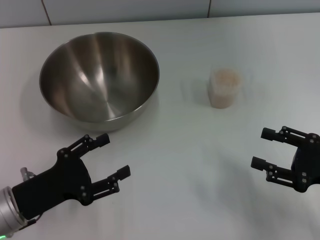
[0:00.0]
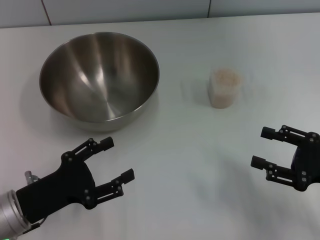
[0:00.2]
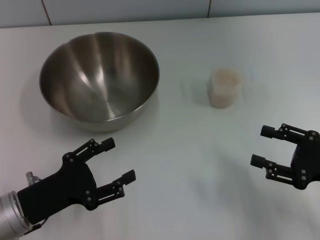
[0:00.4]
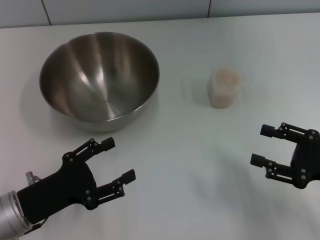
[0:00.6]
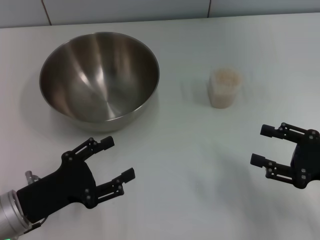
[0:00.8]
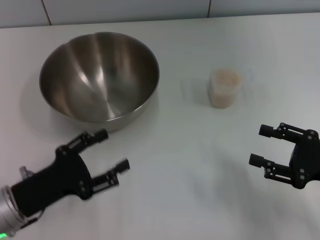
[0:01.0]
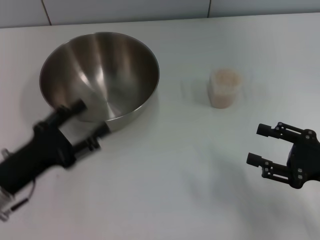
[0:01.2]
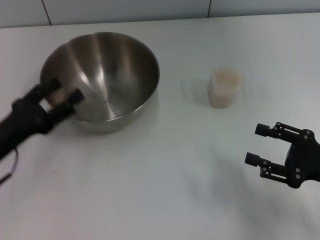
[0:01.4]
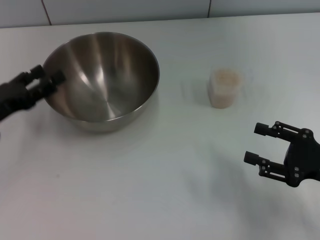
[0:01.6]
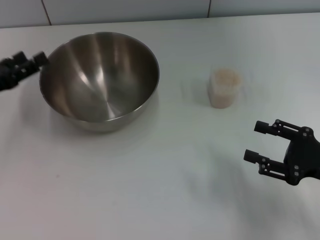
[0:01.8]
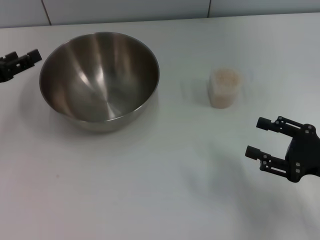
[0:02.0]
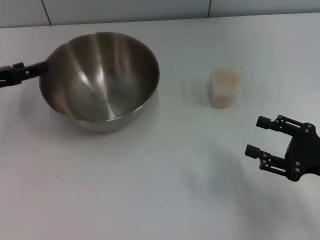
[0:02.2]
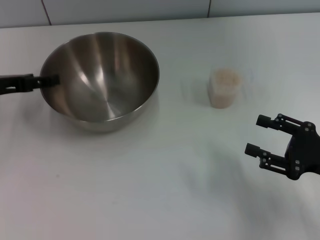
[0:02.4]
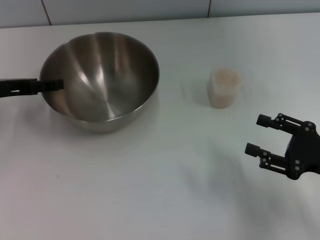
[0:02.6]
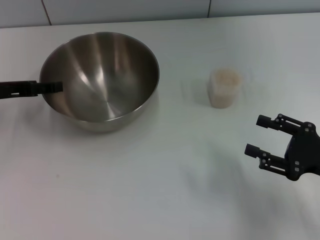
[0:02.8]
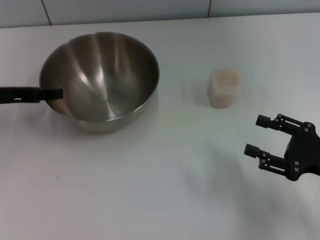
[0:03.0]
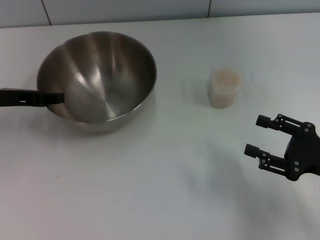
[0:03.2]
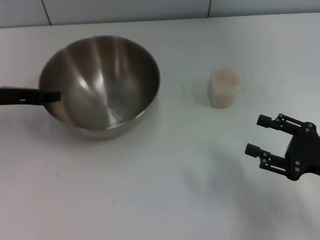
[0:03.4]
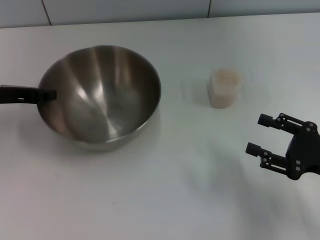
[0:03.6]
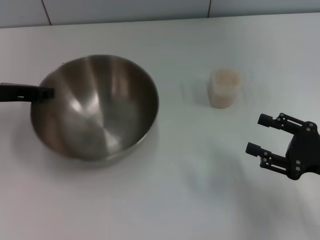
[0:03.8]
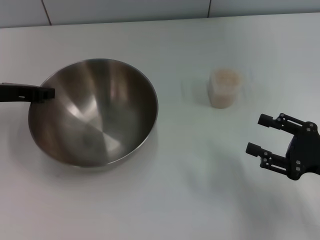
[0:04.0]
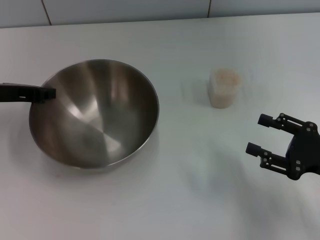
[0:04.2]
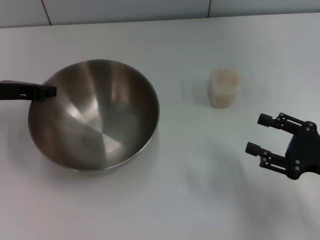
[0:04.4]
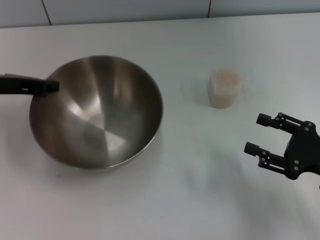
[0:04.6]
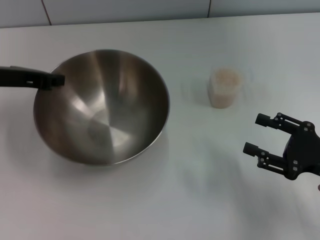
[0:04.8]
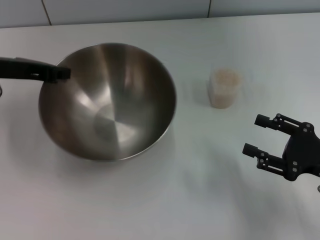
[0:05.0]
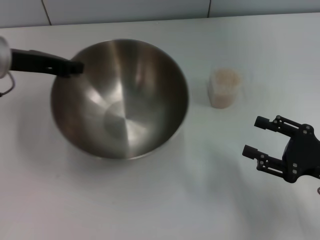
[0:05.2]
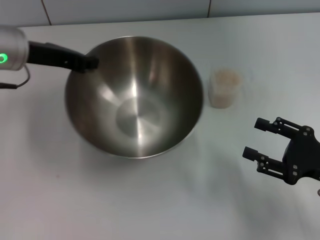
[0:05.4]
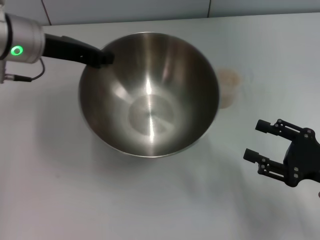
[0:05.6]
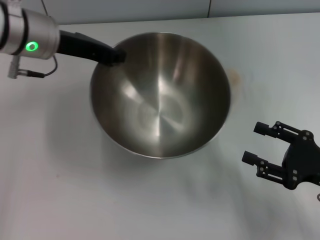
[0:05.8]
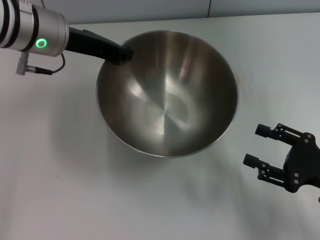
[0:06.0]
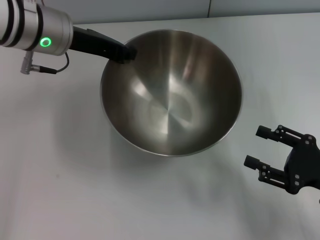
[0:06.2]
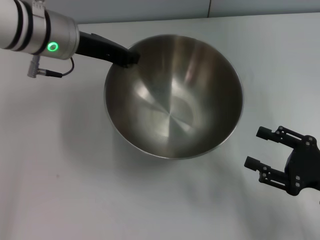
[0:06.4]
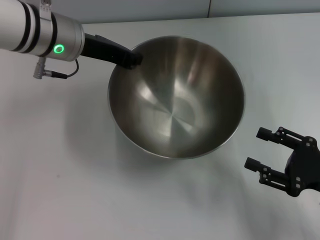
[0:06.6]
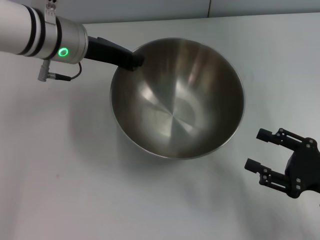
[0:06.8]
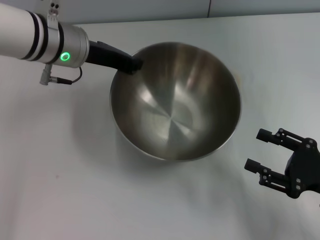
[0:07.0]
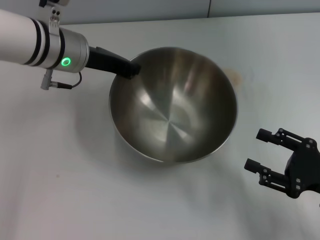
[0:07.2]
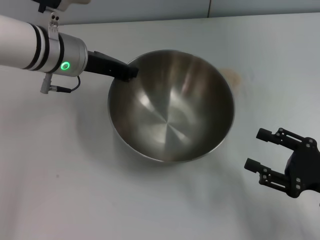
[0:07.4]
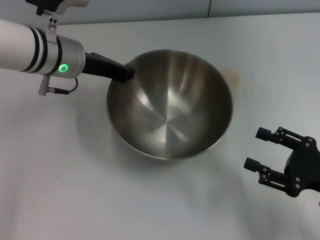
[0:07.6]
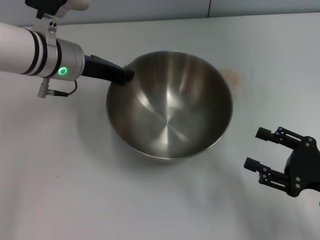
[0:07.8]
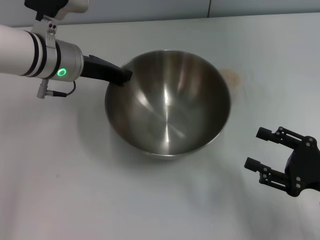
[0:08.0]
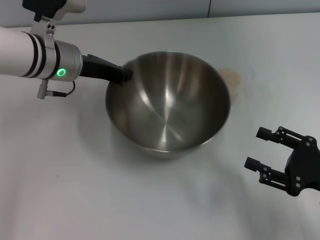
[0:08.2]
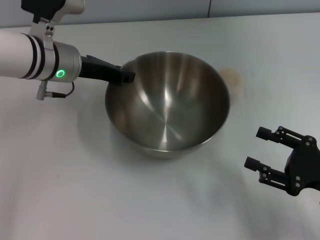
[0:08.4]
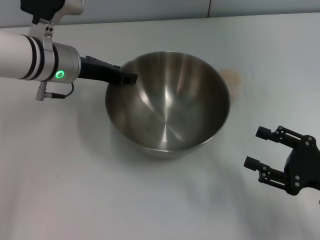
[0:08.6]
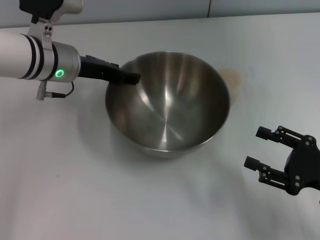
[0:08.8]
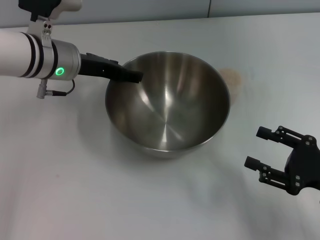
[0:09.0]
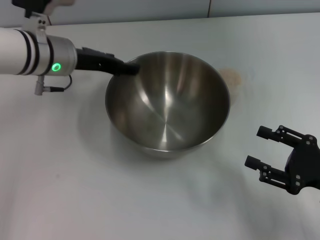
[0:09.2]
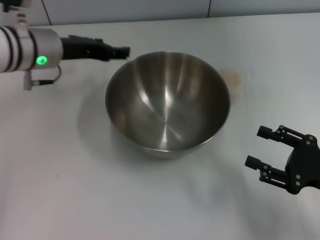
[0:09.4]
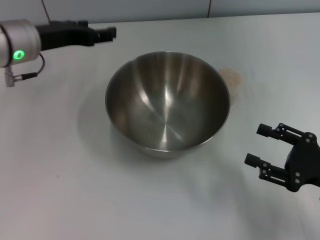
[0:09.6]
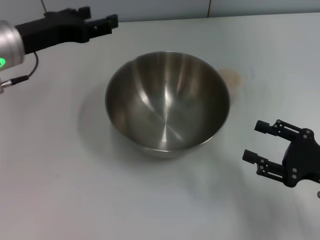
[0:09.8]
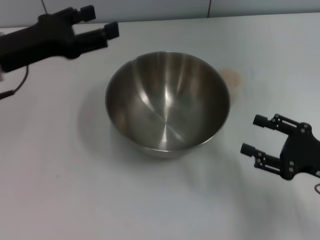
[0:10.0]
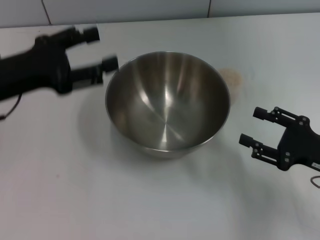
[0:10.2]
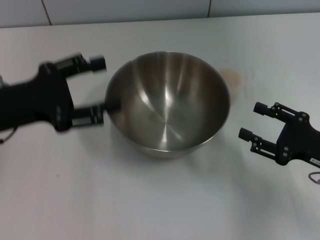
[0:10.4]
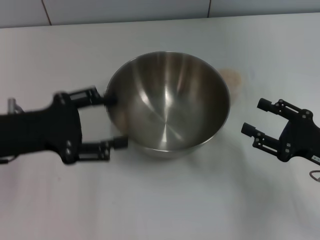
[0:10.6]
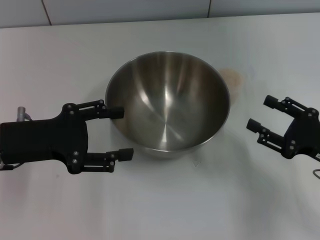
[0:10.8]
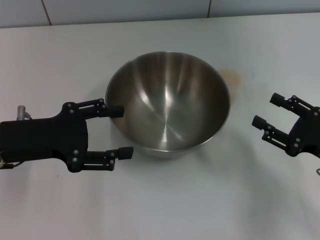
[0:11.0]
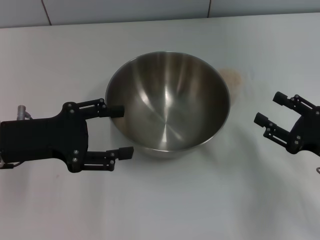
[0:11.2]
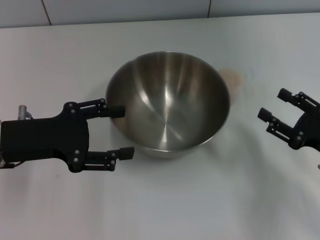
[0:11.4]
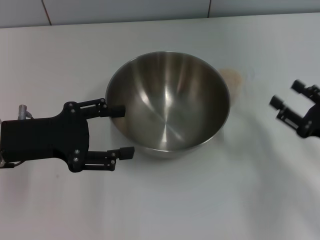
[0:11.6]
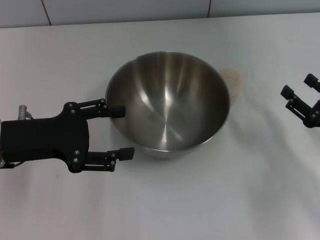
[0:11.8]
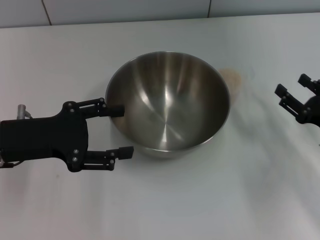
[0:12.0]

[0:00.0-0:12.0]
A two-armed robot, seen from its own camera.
Task of the whole recording: Place the bowl in the middle of the table with one hand and pour the rice from the grain cup into it with the other hand.
Step, 0:00.0 to 0:04.8: Pick up the bowl with the left gripper.
Step, 0:05.0 to 0:09.2: Place the bowl in the center of view with the left gripper.
0:00.0 to 0:01.6: The left gripper is displaced forward and to the left by roughly 10 cm.
0:01.6 to 0:03.0: The left gripper shifts approximately 10 cm forward and upward.
0:03.0 to 0:04.4: The left gripper closes up.
0:04.4 to 0:06.0: The left gripper shifts approximately 15 cm to the right and upward.
0:06.0 to 0:07.6: The left gripper shifts some 5 cm downward.
0:07.6 to 0:09.0: The left gripper opens up.
0:09.0 to 0:10.4: The left gripper shifts some 15 cm backward and to the left.

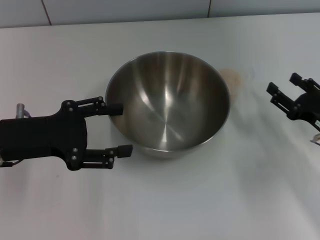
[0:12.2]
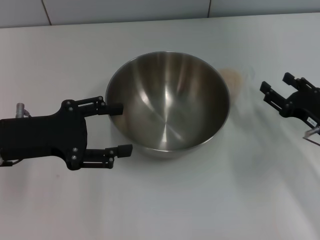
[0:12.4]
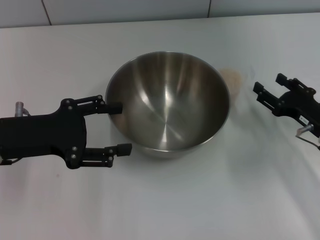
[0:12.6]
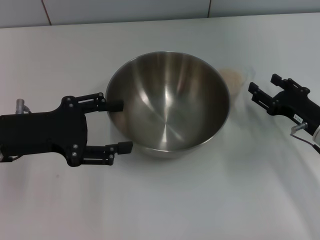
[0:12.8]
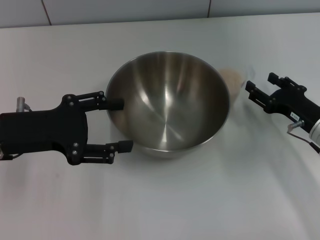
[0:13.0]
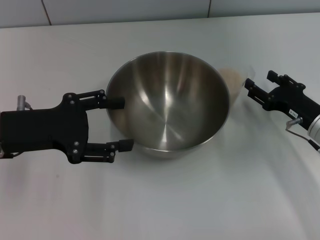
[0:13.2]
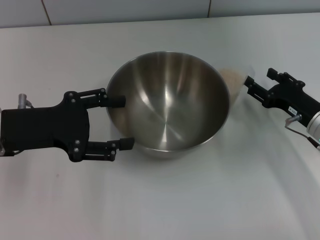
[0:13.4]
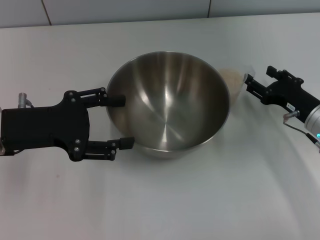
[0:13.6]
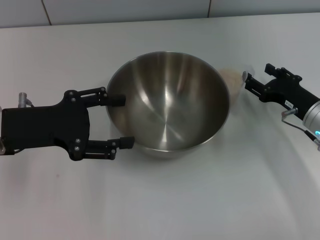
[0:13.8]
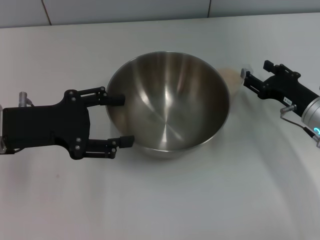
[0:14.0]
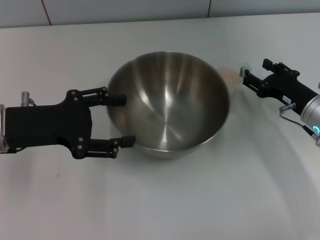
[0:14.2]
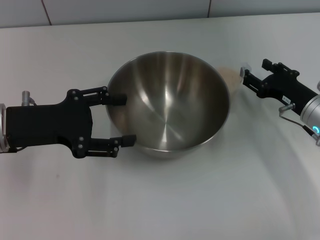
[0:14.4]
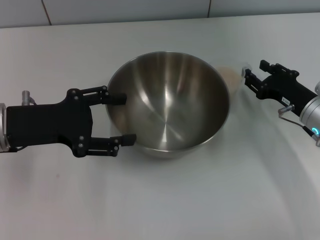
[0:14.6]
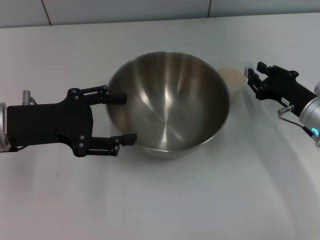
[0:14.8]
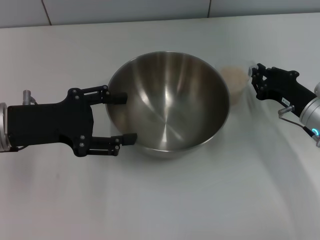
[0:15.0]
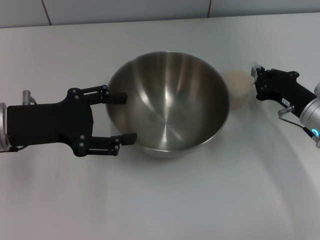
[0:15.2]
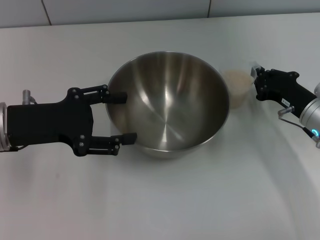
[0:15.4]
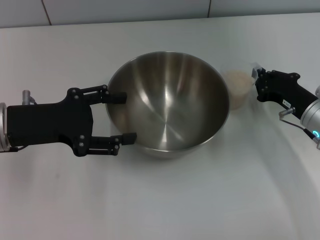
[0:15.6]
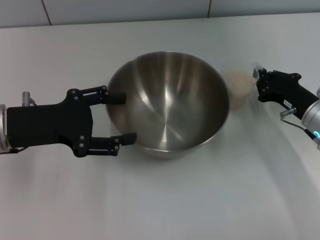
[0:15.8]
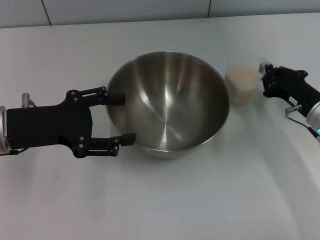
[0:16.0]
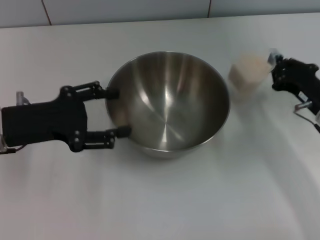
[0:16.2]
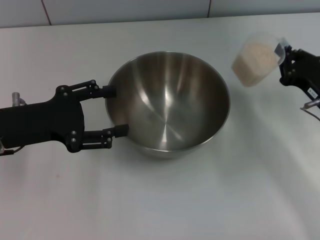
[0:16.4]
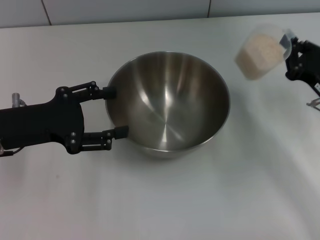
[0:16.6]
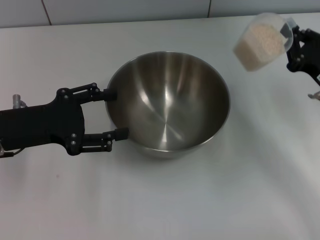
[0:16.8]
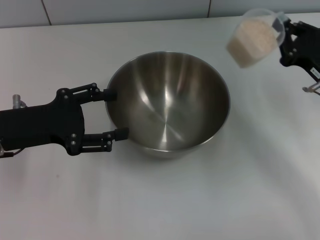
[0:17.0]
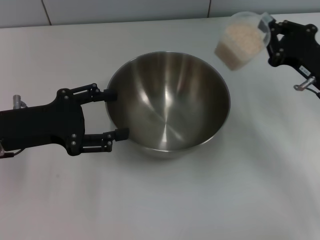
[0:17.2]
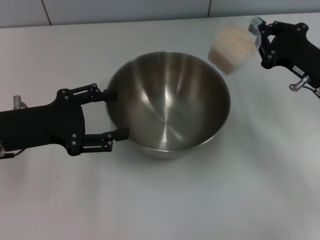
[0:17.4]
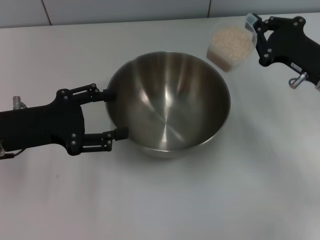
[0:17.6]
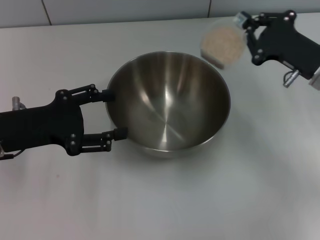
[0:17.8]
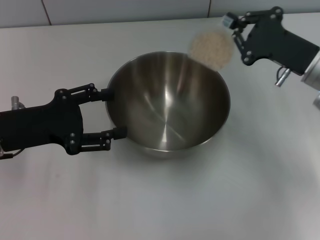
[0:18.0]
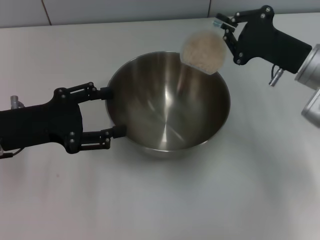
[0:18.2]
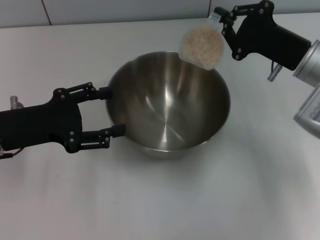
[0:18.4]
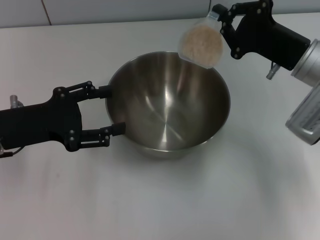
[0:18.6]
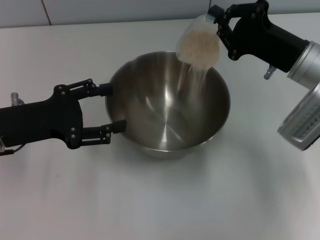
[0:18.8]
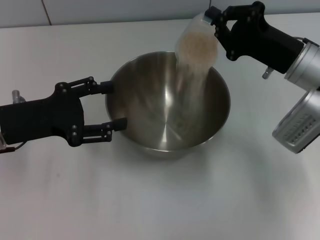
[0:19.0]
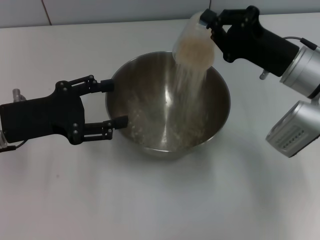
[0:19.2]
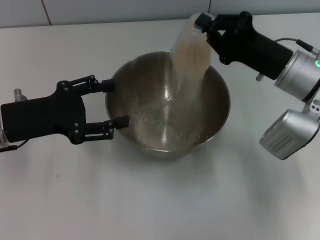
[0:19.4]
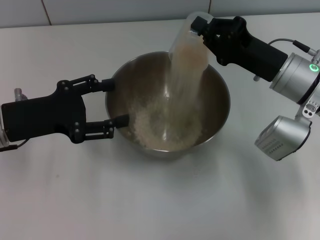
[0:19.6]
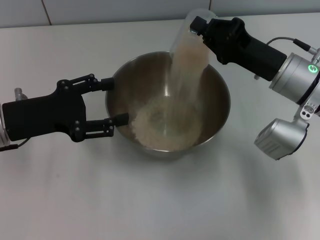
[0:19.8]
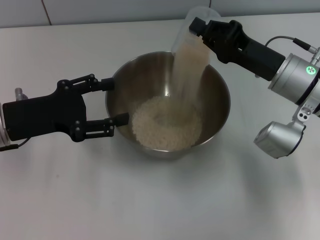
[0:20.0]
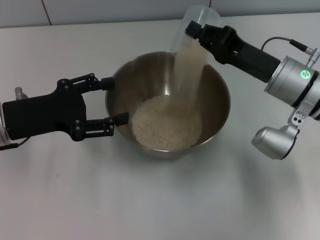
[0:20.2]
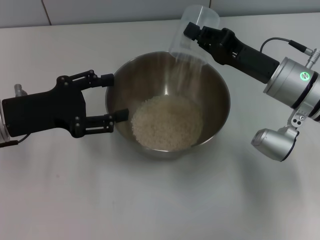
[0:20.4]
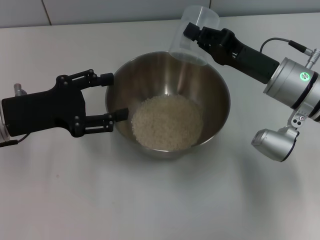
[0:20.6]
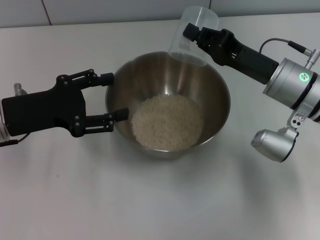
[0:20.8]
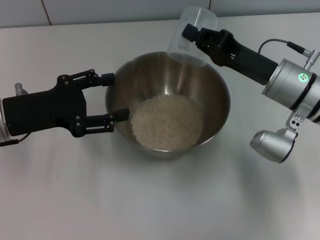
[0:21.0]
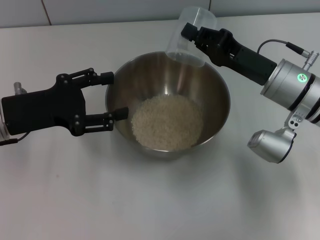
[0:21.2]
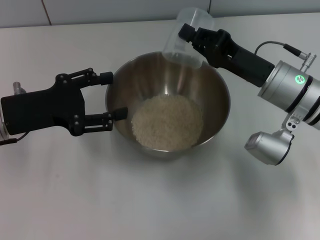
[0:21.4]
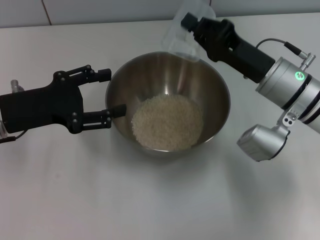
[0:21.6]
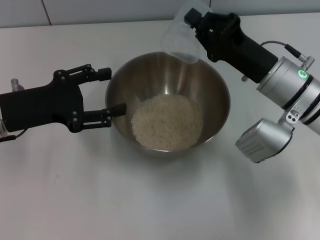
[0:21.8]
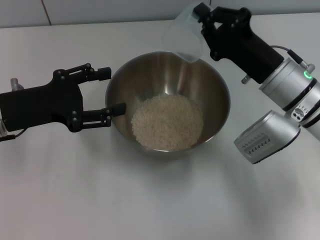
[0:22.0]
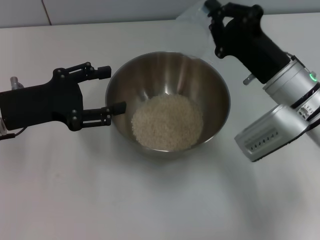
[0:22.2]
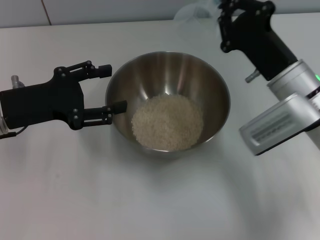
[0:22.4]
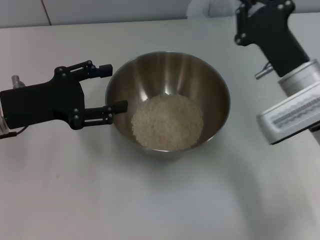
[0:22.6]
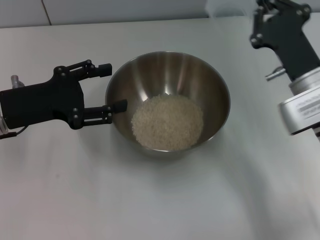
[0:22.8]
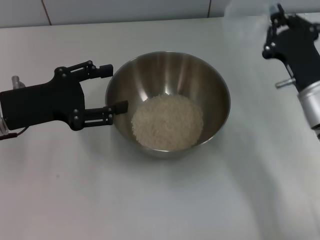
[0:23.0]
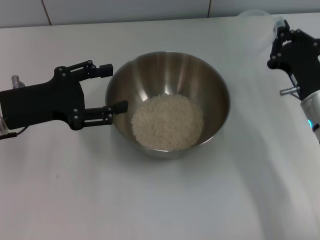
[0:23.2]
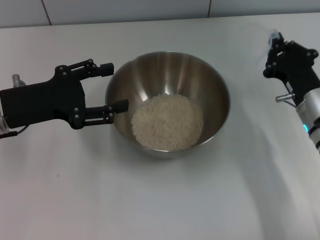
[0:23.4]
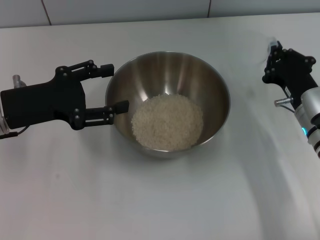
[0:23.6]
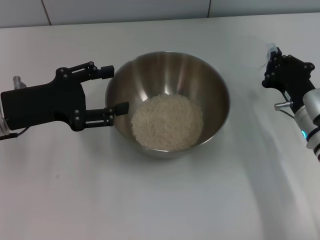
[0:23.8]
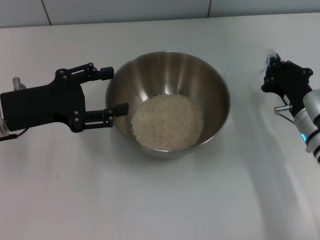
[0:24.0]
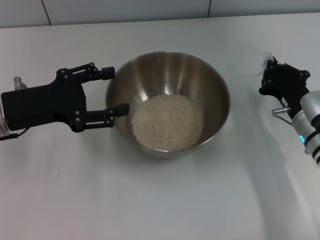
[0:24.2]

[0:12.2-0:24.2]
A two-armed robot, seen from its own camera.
Task of the whole recording: Place the bowl in the middle of the table with one hand and pour the rice from the grain cup into it with the other hand.
Step, 0:12.2 to 0:16.8: Pick up the cup with rice in it with the right gripper.
Step, 0:17.2 to 0:22.6: Pour the rice from the cup into the bowl with the right gripper.
0:12.2 to 0:13.8: The right gripper moves forward, about 5 cm.
0:13.8 to 0:15.2: The right gripper closes up.
0:15.2 to 0:16.6: There are only small adjustments of the grippers.
0:16.6 to 0:18.2: The right gripper shifts approximately 10 cm forward and upward.
0:19.8 to 0:21.2: The grippers stay close to where they were, moving slightly.
0:22.6 to 0:24.2: The right gripper shifts roughly 5 cm downward.
